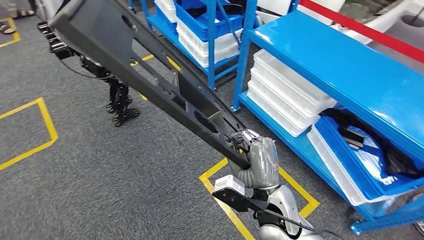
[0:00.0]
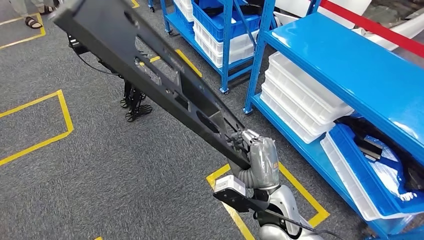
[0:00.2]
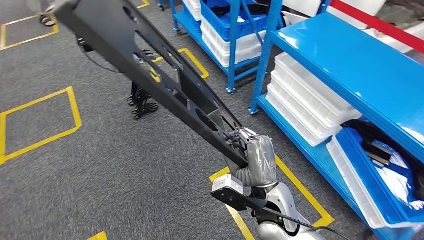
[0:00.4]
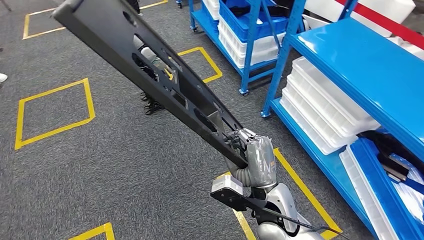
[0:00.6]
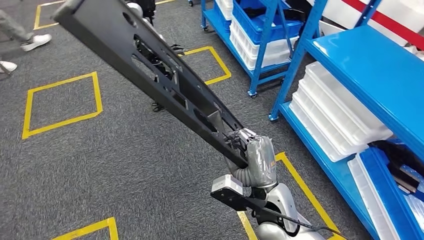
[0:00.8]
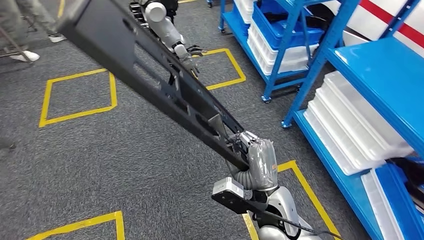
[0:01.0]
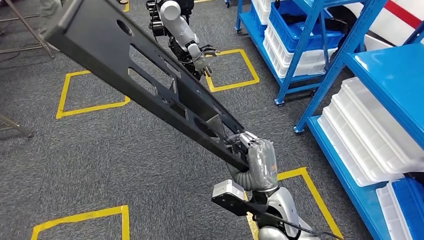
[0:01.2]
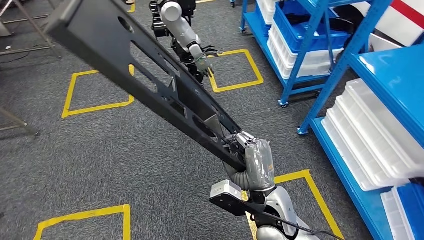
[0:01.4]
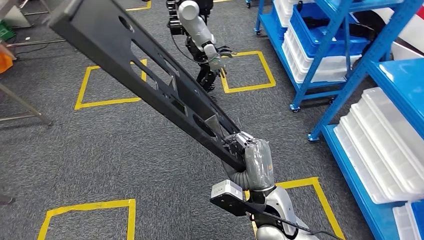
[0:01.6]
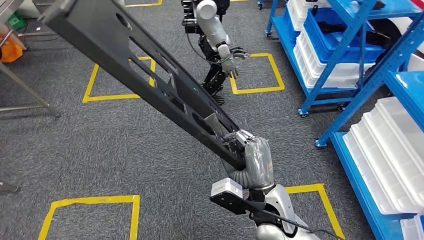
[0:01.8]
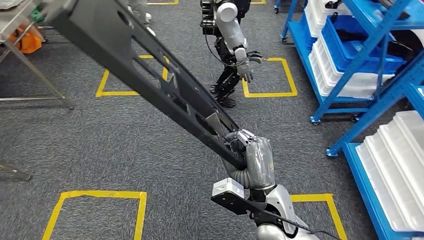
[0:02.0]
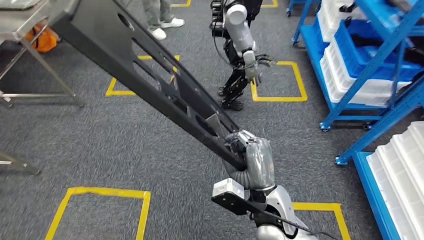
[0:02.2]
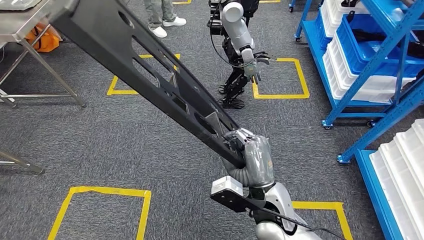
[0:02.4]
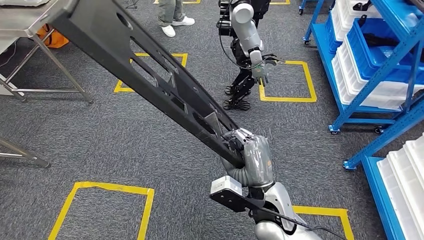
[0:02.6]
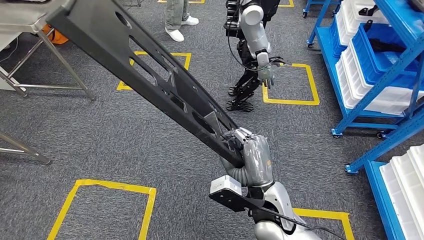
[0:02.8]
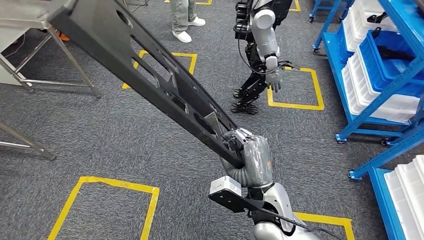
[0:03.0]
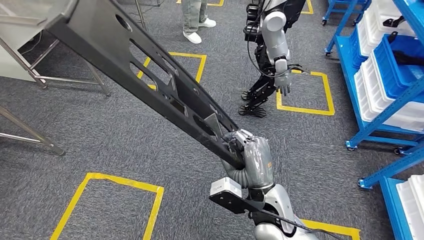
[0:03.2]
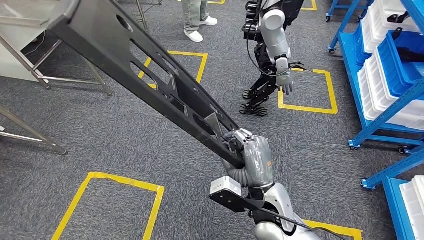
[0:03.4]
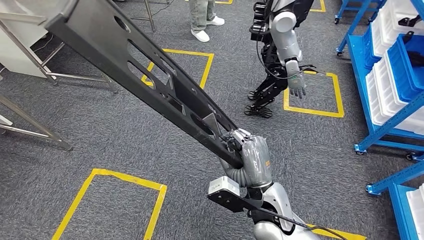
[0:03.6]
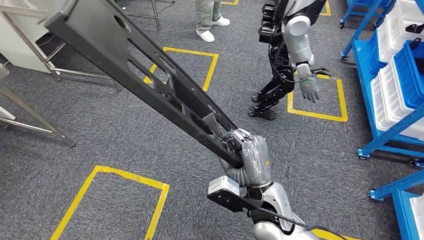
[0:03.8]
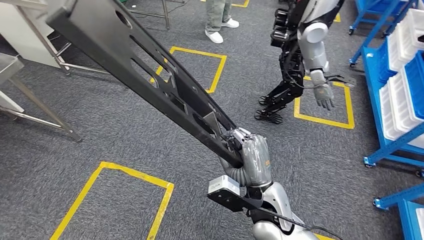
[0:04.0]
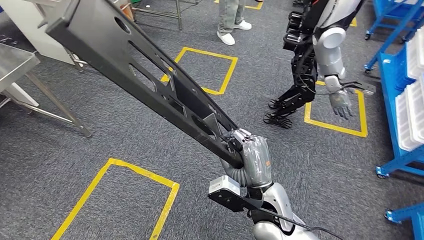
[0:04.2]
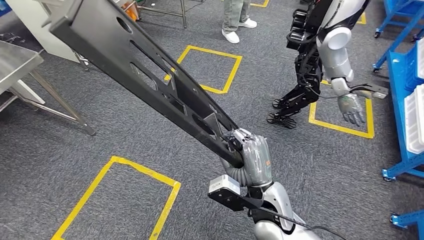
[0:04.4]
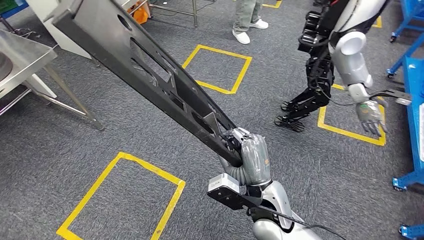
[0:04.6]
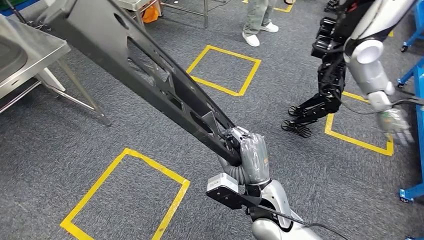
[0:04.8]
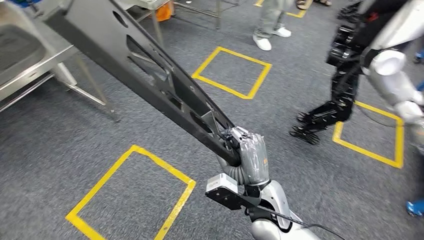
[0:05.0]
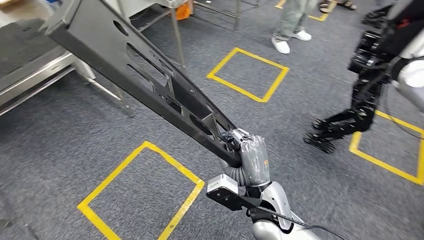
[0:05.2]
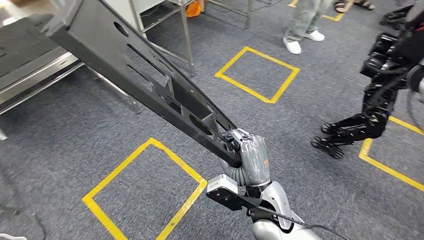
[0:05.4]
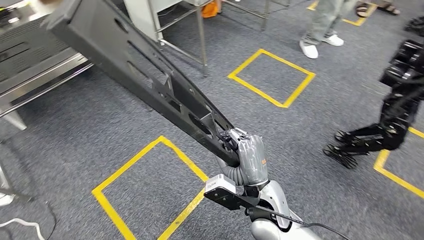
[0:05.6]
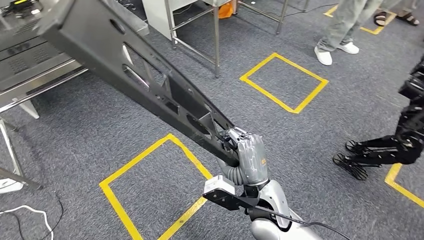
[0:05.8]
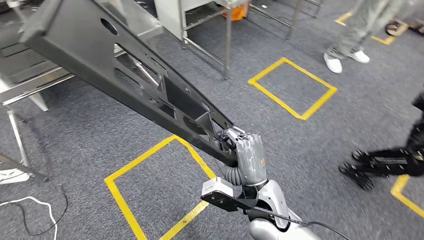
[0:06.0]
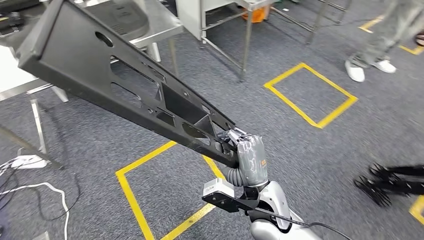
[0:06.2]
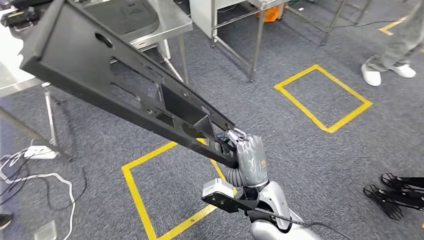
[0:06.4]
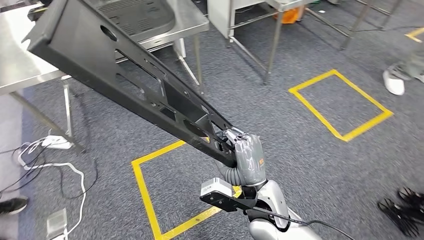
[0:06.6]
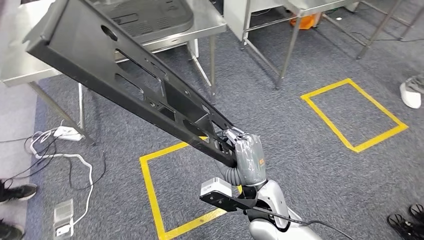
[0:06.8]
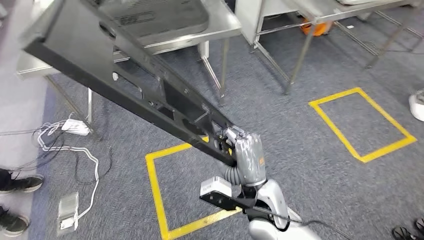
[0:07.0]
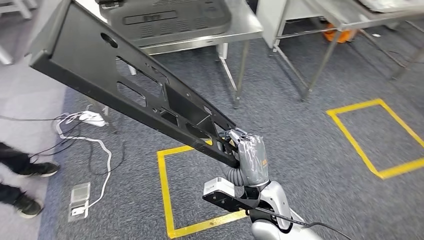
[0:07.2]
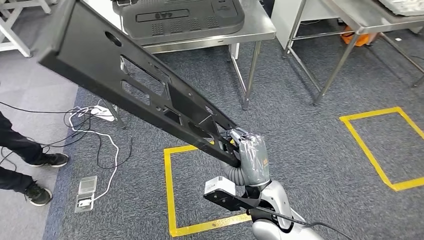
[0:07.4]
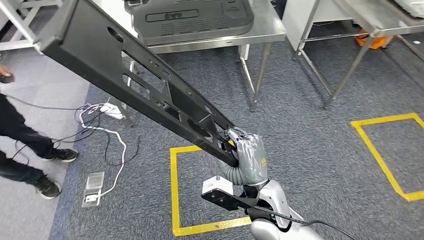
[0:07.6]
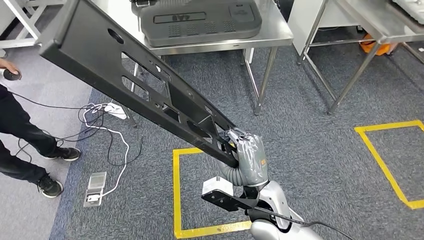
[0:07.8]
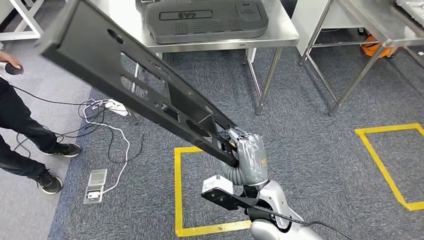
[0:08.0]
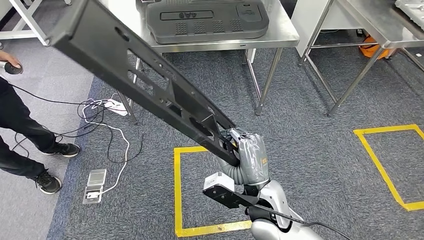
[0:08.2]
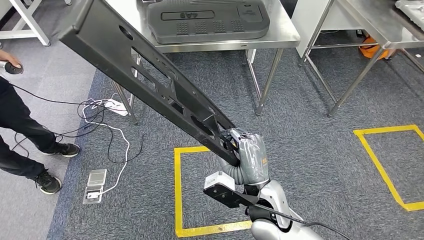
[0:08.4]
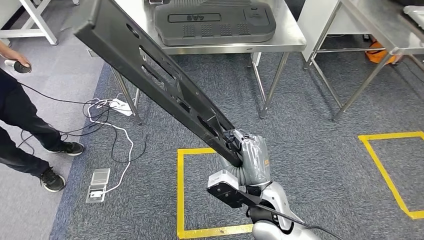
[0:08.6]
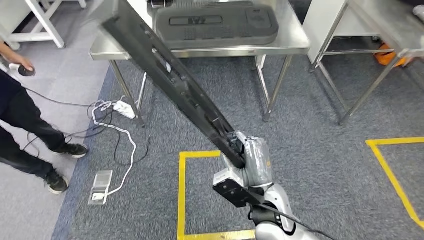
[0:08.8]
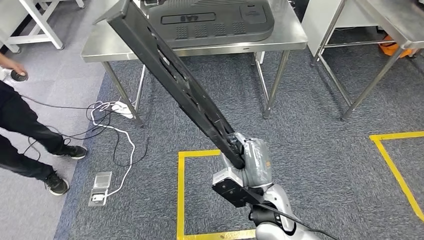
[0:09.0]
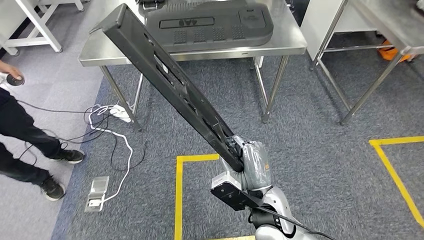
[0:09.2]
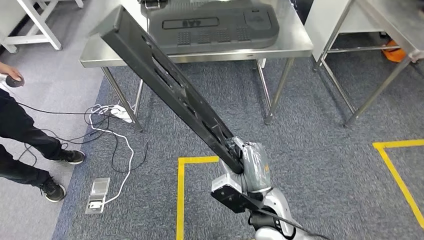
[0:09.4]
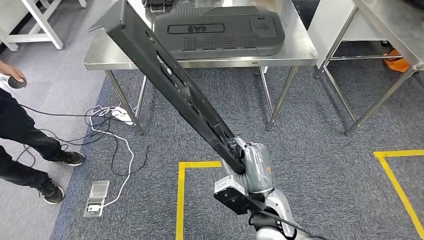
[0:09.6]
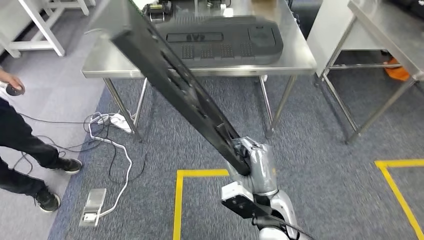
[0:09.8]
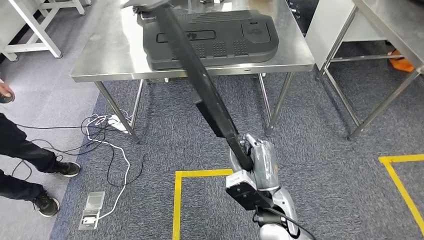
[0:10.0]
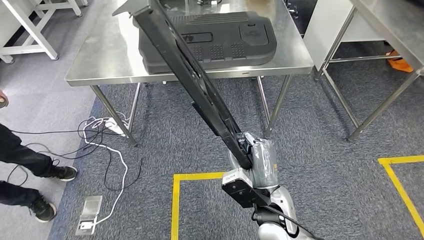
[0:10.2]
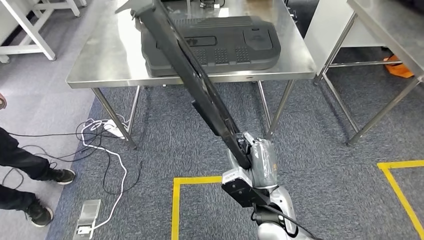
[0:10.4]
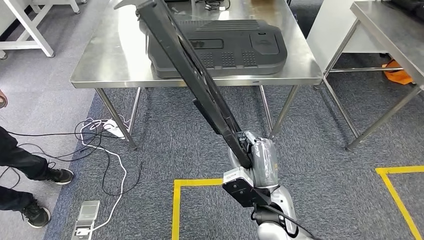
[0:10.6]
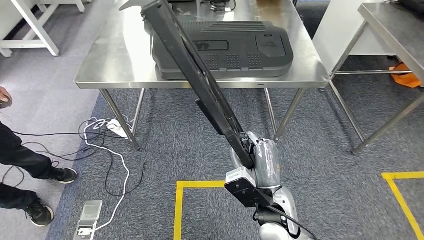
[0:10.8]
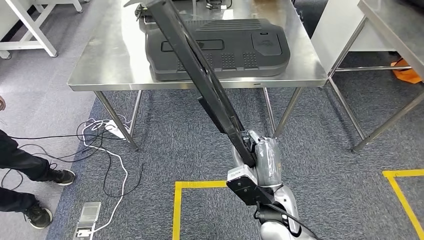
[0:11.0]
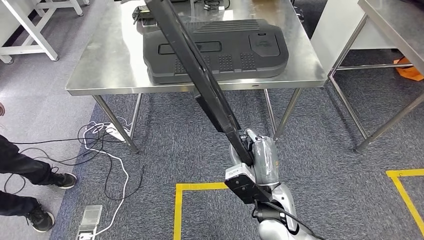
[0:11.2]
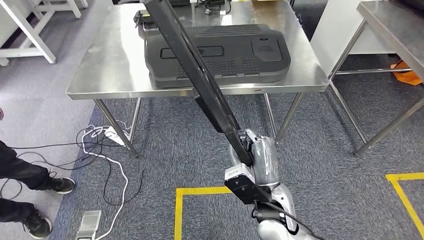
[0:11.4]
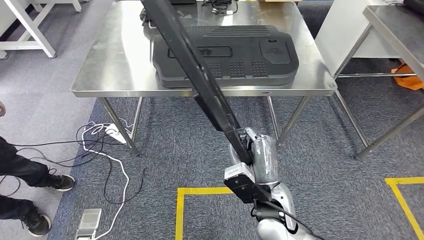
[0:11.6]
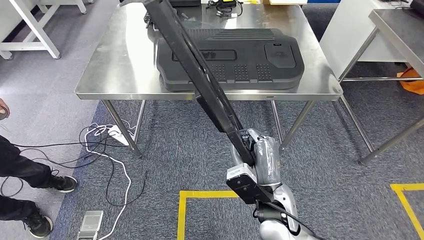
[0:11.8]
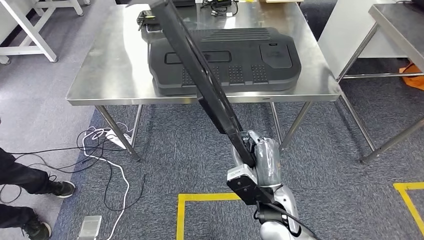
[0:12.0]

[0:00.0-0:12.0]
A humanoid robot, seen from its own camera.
Step, 0:00.0 to 0:10.4: Move the large material to the workbench.

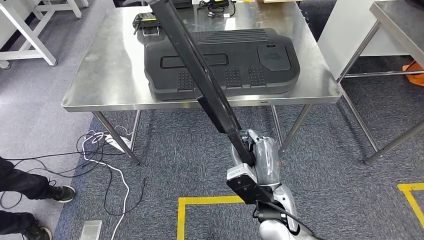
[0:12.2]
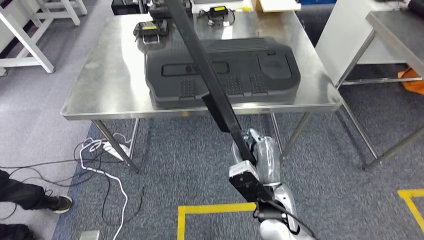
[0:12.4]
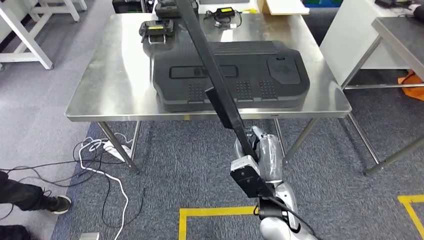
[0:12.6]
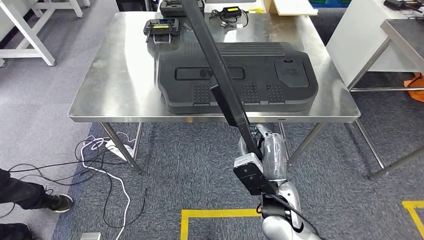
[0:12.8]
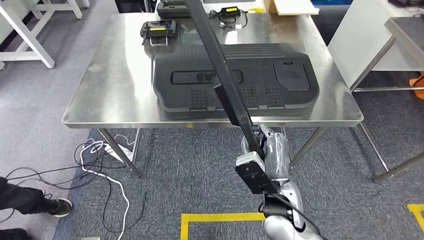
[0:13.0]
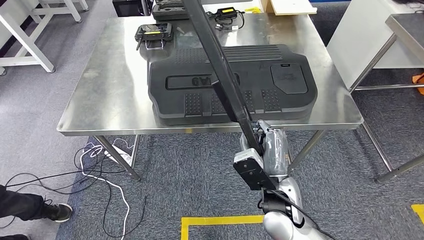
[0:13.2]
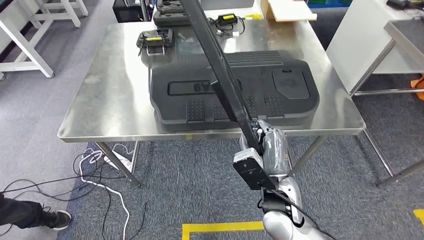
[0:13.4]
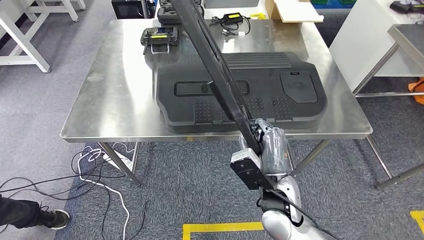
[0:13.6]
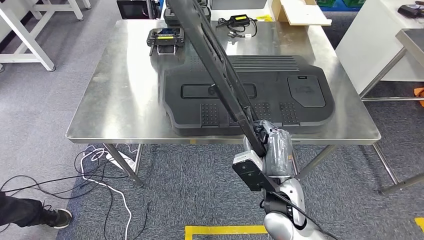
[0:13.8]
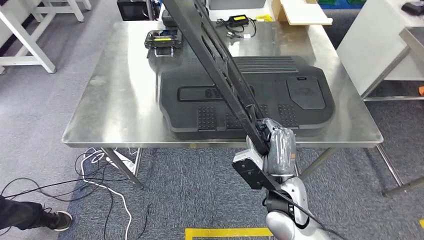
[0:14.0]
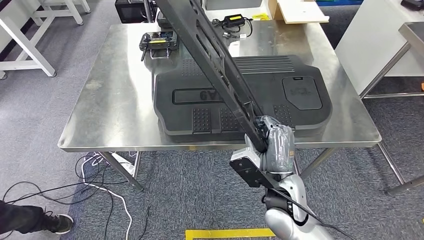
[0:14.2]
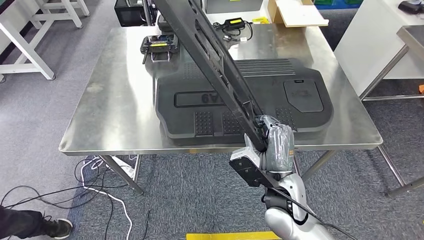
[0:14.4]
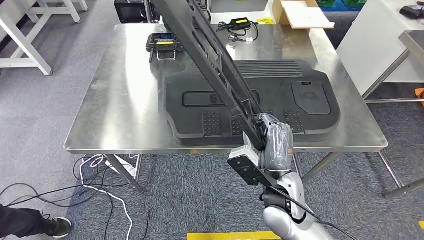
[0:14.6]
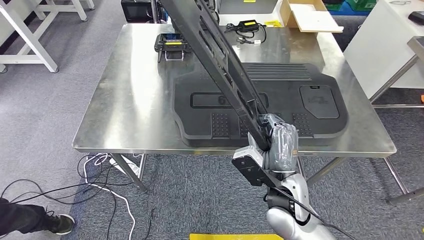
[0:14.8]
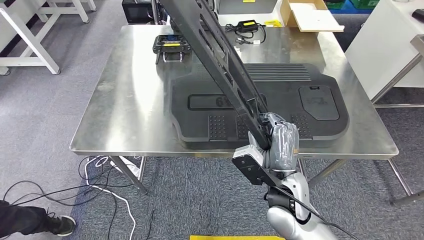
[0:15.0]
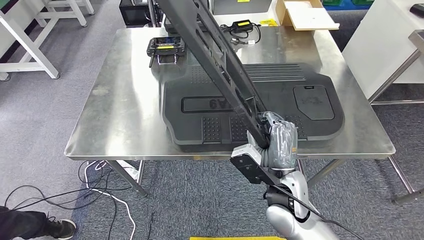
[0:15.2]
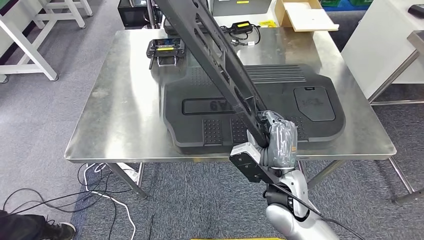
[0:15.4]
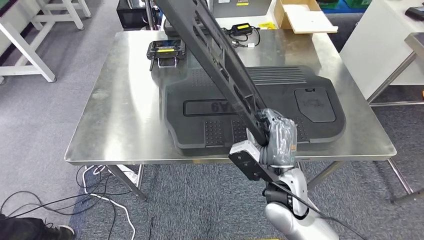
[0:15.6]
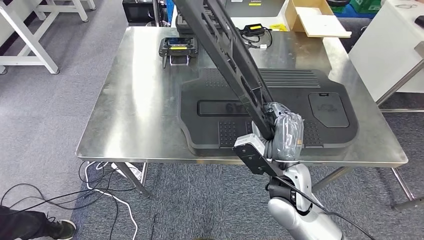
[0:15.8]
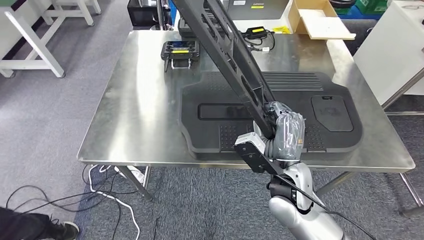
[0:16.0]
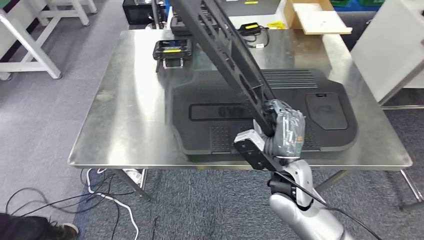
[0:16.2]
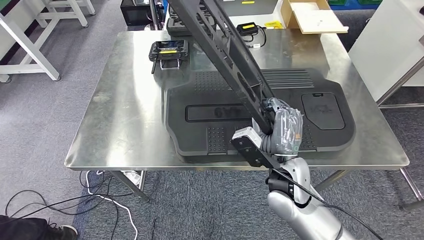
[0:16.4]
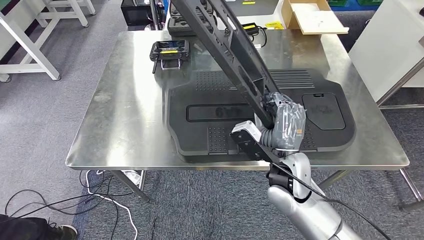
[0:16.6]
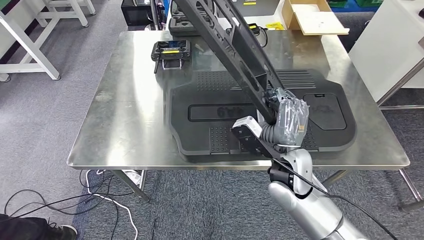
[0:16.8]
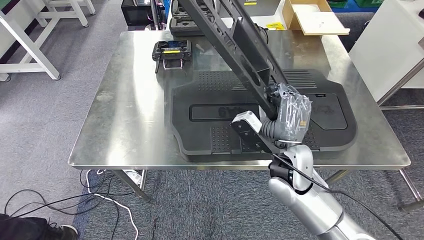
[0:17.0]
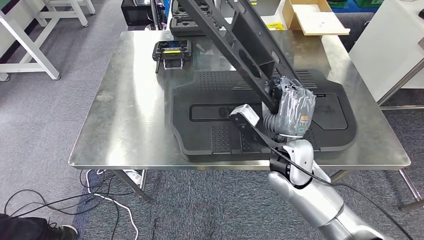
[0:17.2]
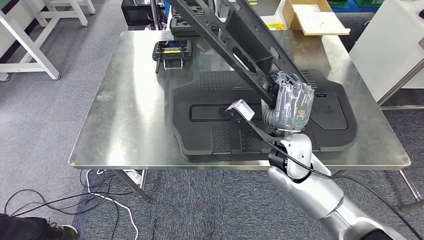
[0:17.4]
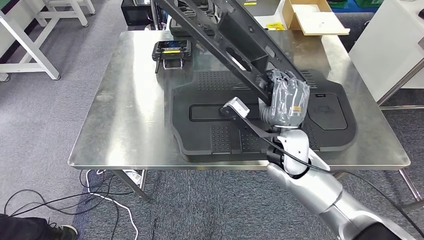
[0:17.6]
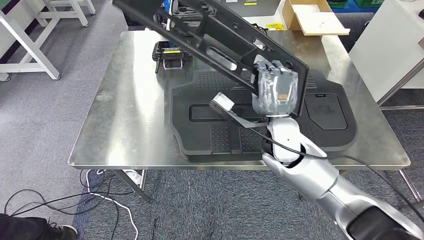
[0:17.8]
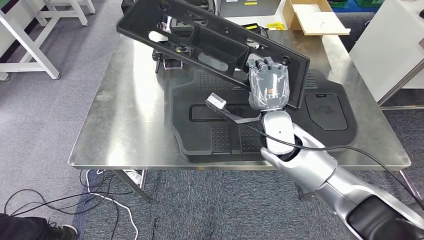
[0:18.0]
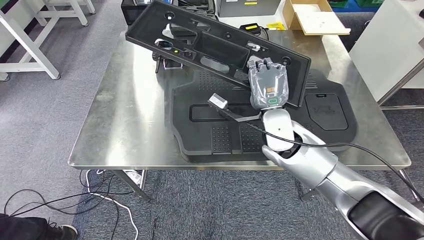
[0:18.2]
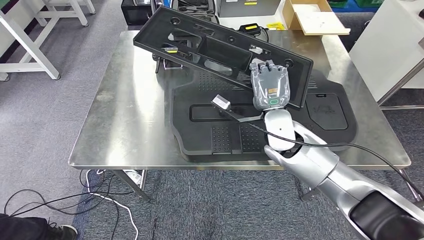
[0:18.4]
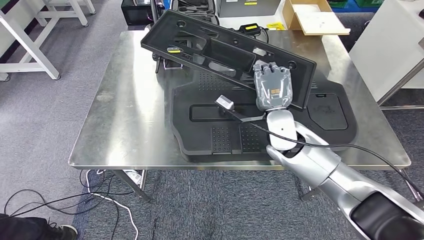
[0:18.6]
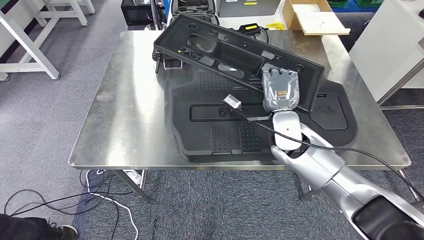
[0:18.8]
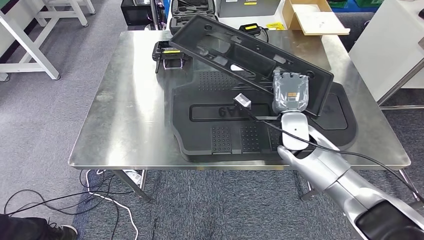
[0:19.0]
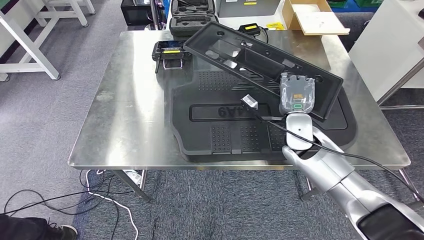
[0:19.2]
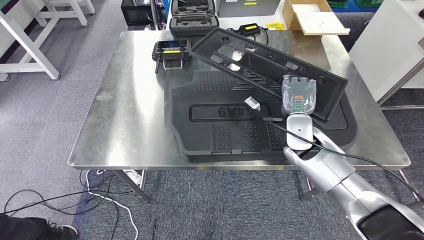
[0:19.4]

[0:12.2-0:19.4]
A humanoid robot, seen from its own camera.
0:18.0 to 0:19.4: The right hand goes about 10 cm to the right and downward.
